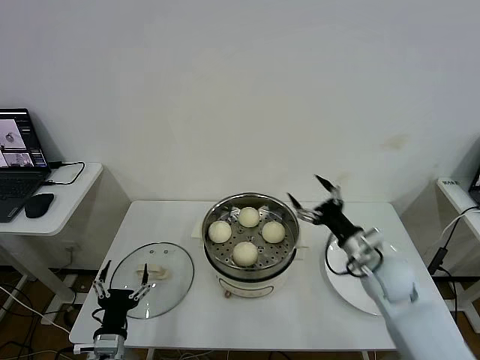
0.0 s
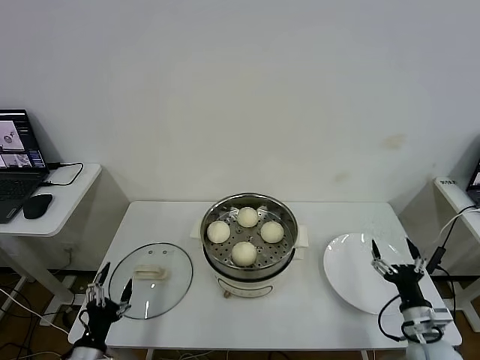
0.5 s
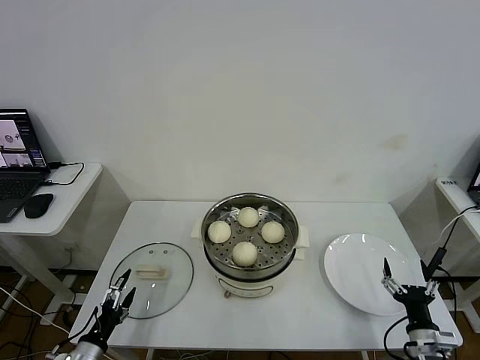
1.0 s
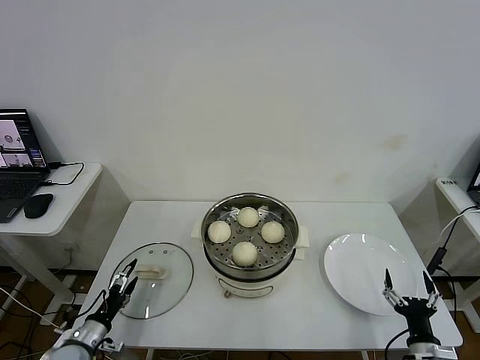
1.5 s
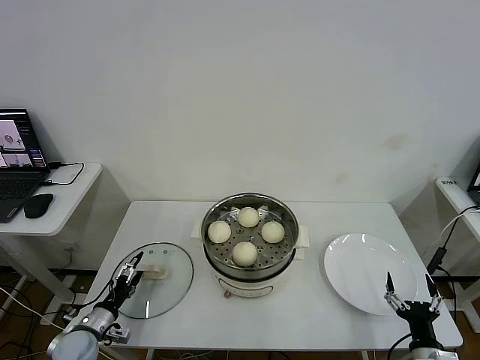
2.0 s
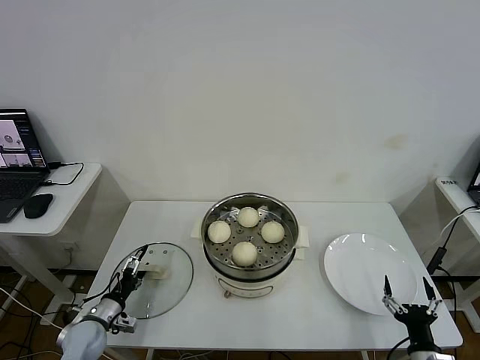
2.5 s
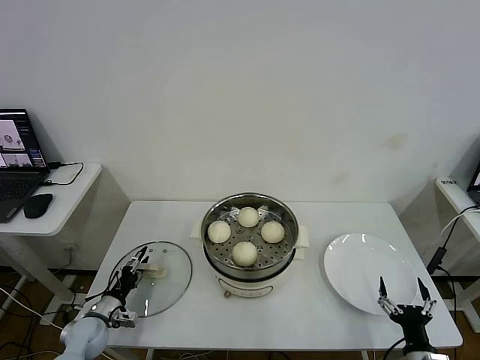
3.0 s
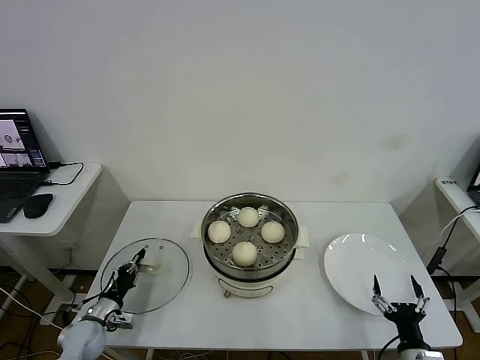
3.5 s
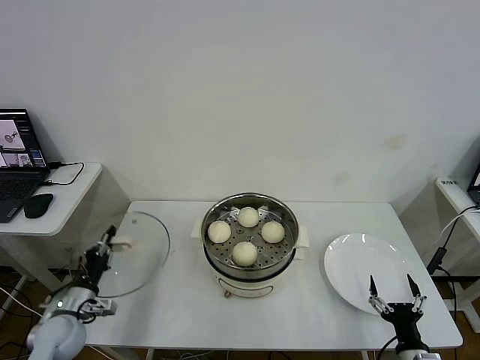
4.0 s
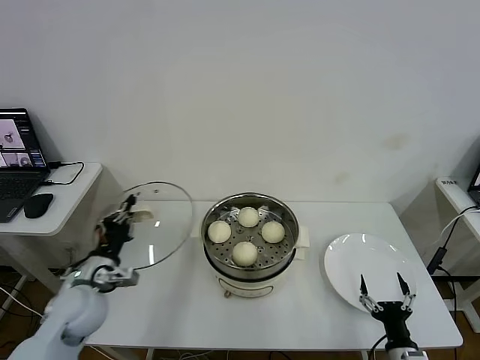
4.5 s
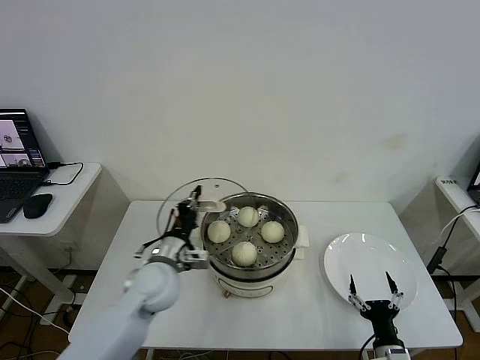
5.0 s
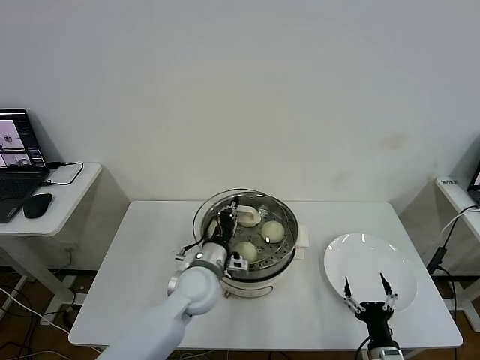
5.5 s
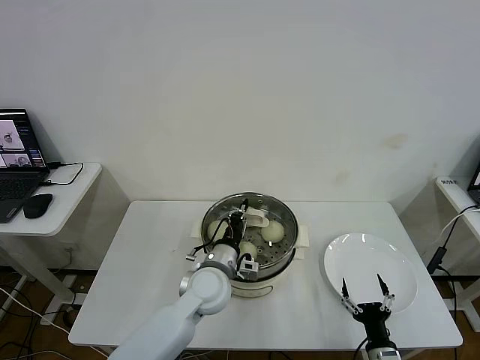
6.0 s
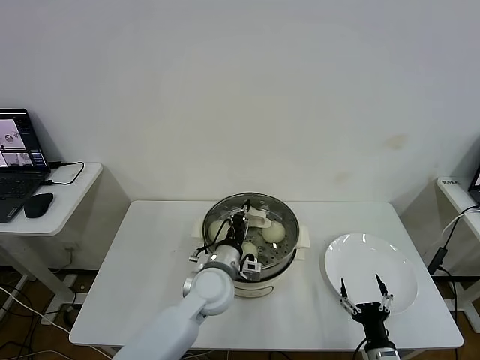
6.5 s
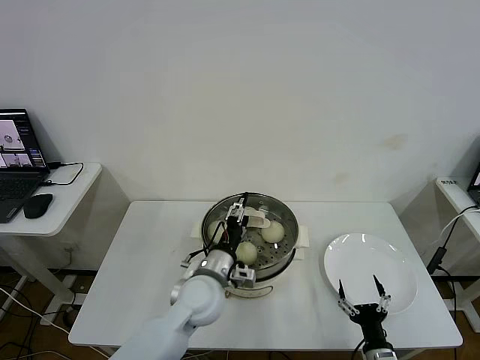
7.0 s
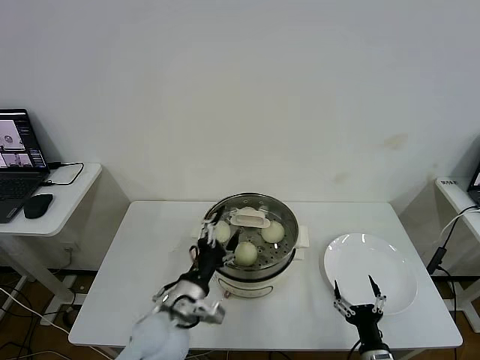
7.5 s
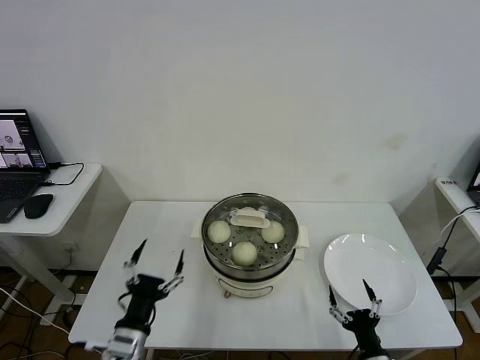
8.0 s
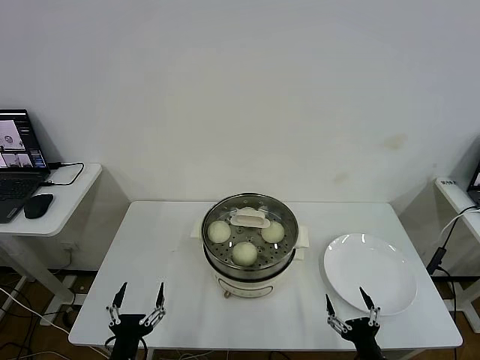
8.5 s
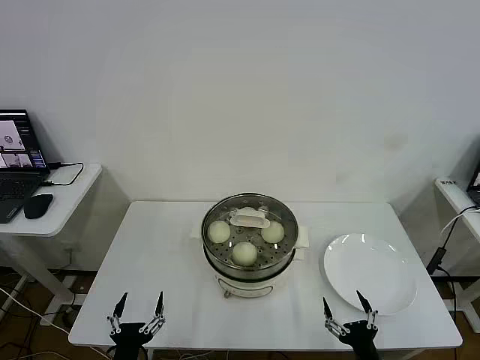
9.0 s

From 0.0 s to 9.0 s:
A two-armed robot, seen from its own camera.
Step, from 0.0 s to 3.5 s: Grasp the pot lid with left gripper.
Step, from 4.0 s to 7.5 s: Place the pot lid on the steamer with left gripper.
From 0.0 s to 2.0 s: The right gripper goes some 25 cm backward, downward and to the right. The left gripper travels to the left, forward and downward by some 15 cm.
From 2.0 s to 4.5 s: The left gripper heads upward, covering some 15 cm, and closes up.
From 4.5 s to 7.0 s: The left gripper goes about 25 cm to the right, and opens its fingers.
From 7.0 s to 9.0 s: The right gripper shifts by roughly 5 cm. Meanwhile the left gripper travels backward, to the left and downward by roughly 30 cm, and opens its fingers.

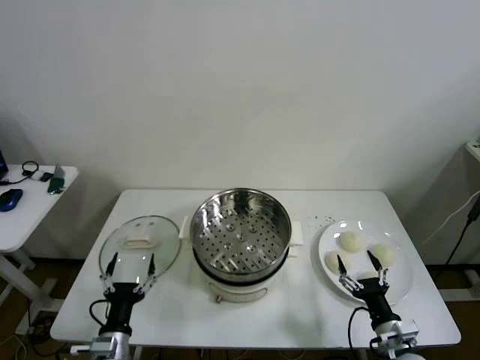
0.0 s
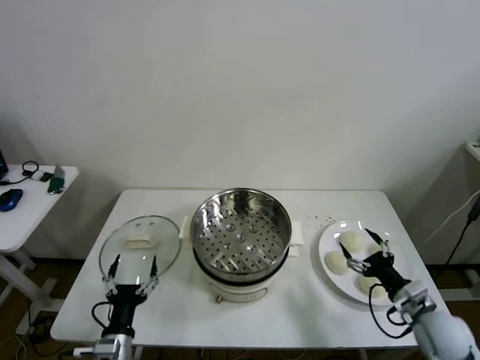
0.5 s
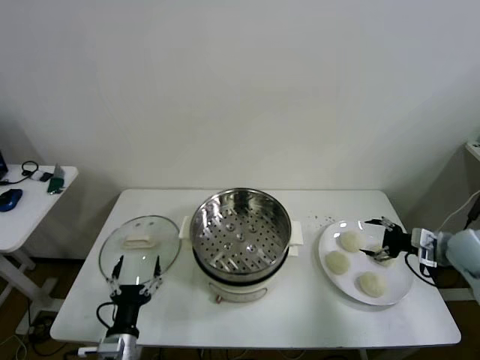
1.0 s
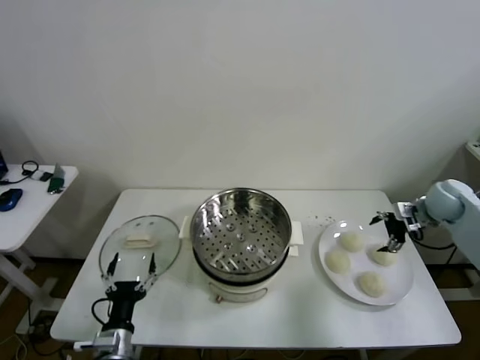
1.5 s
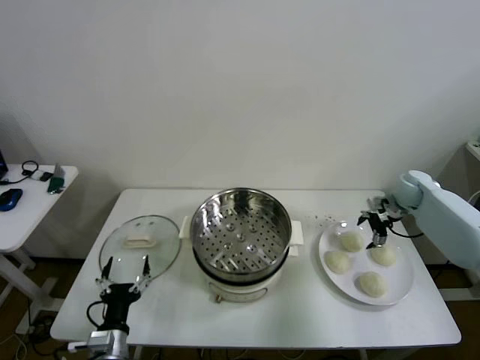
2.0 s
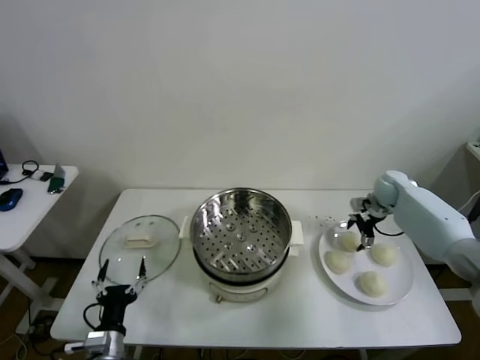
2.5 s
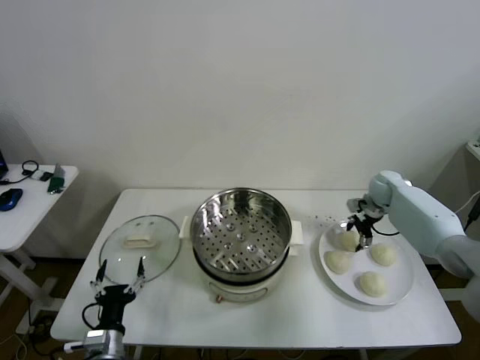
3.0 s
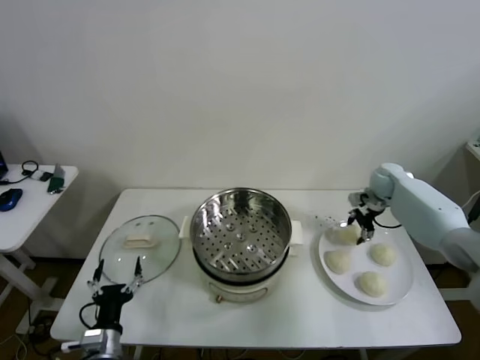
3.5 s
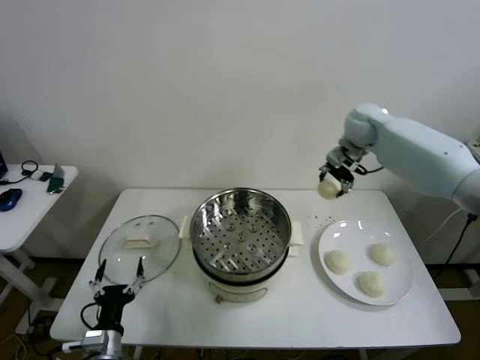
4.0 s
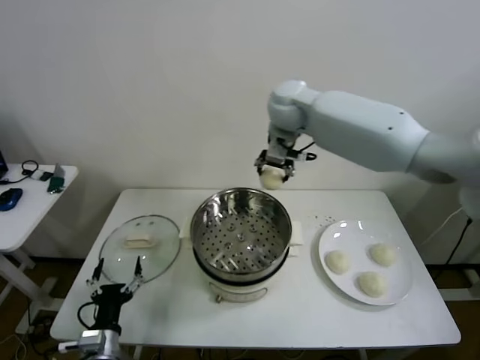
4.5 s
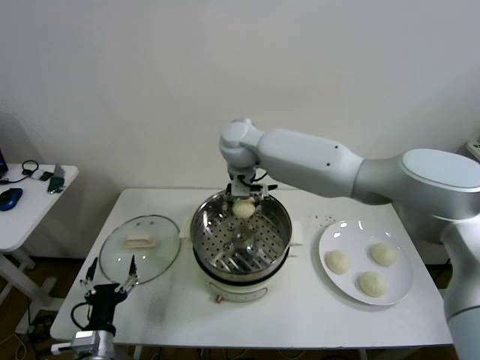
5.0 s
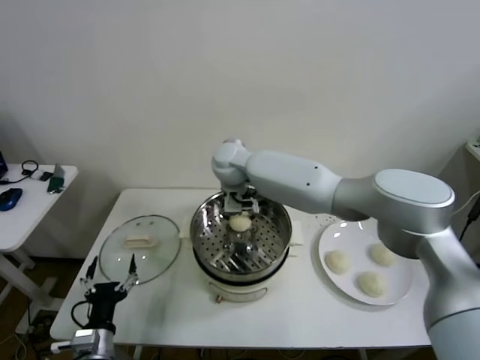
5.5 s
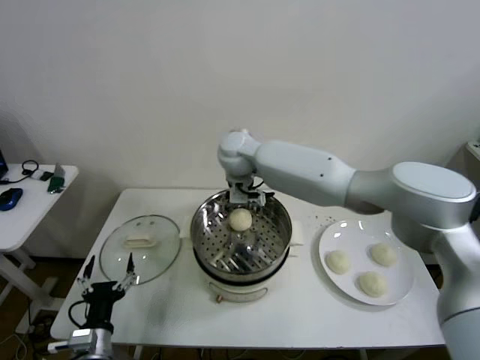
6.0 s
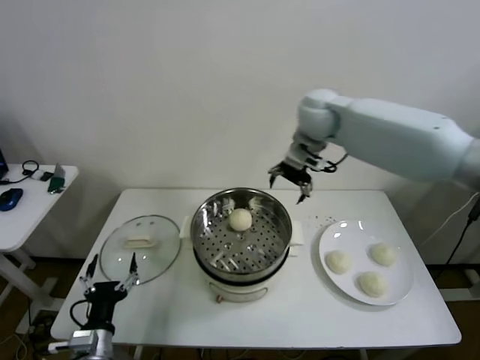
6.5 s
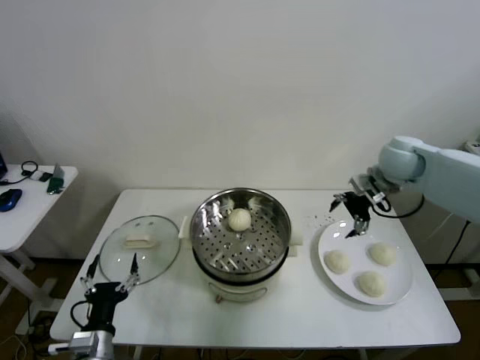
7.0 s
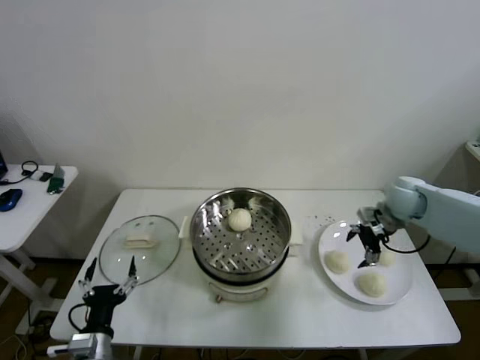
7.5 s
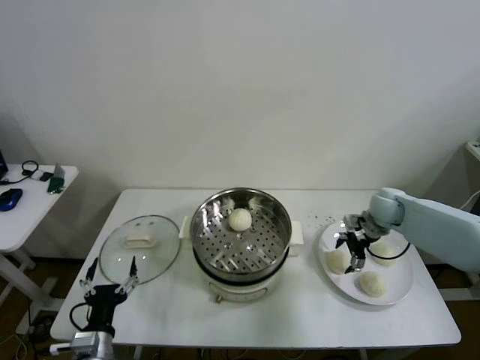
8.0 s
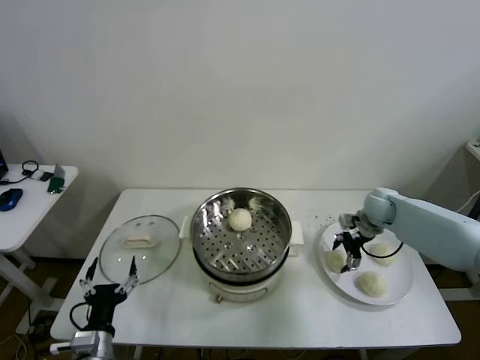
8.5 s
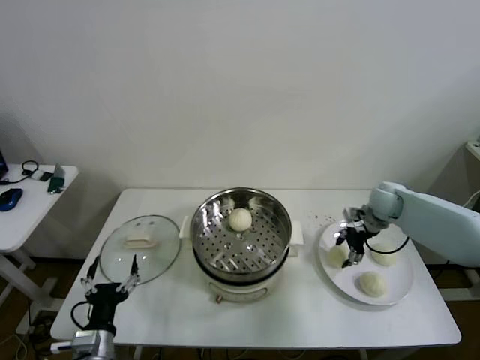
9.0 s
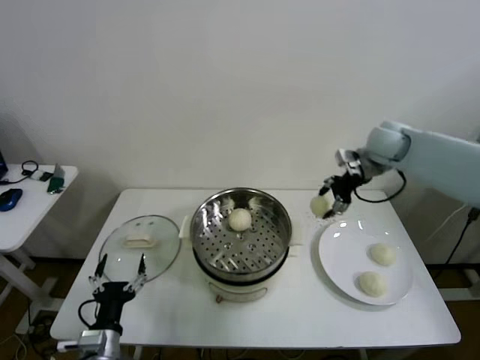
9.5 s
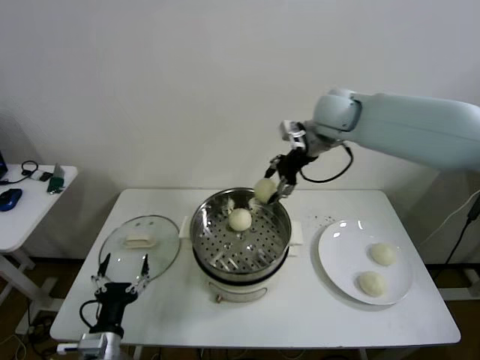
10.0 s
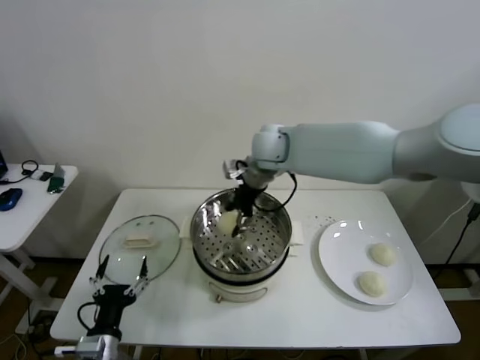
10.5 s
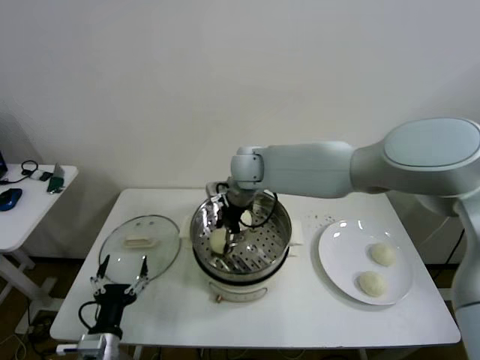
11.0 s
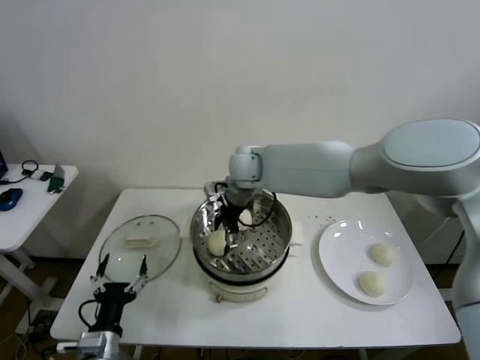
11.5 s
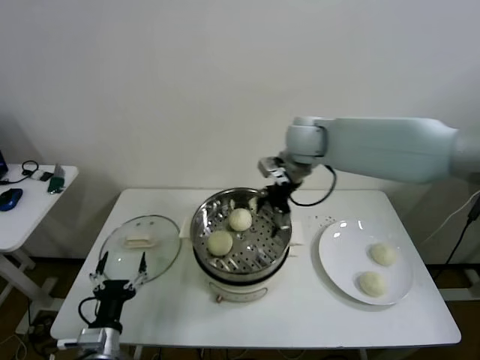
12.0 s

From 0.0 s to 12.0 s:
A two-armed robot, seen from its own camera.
Step, from 0.0 s to 2.5 s: Grasp the baozi in the plate with right gripper.
Step, from 3.5 s to 5.5 s: Place the baozi on the steamer with right gripper.
Step, from 6.0 s to 8.5 s: Grasp the baozi in the plate with right gripper.
Step, from 9.0 s to 11.5 s: Place the baozi on the steamer with right gripper.
From 2.0 s to 4.0 s: The right gripper shifts about 25 cm upward and to the left, and closes.
From 4.0 s to 6.0 s: The right gripper heads to the left, covering about 25 cm, and opens up.
From 6.0 s to 8.0 s: The right gripper goes approximately 40 cm to the right and downward.
From 8.0 s to 10.0 s: The right gripper is displaced upward and to the left by some 30 cm, and closes.
From 10.0 s to 12.0 s: The right gripper moves some 15 cm to the left and comes back, and opens its fingers.

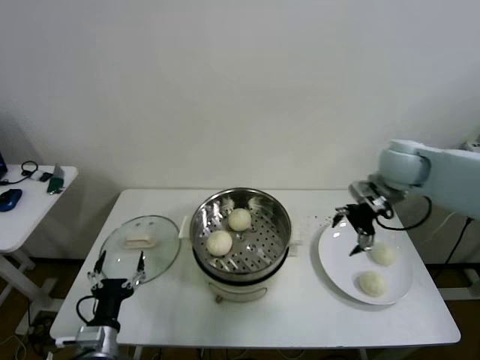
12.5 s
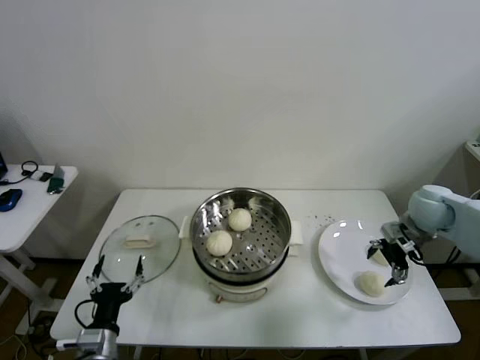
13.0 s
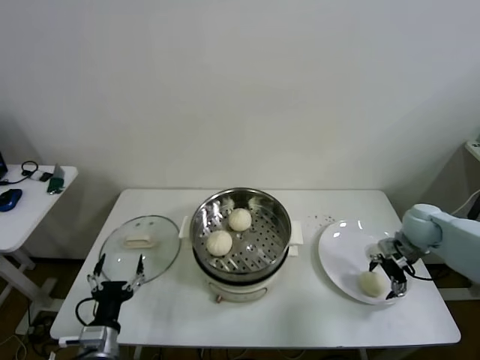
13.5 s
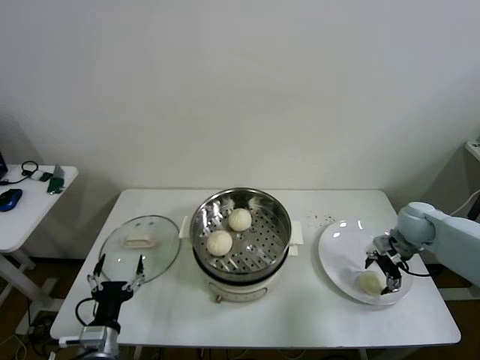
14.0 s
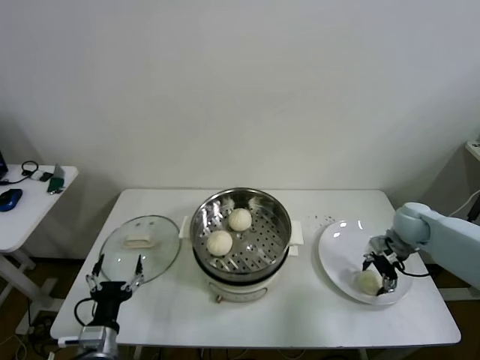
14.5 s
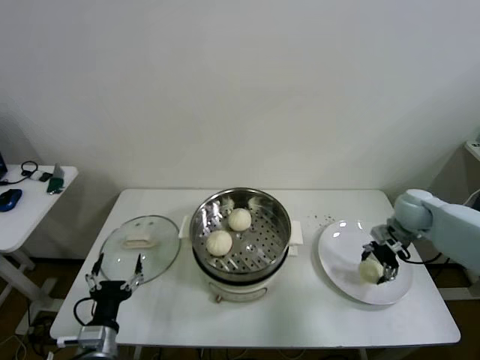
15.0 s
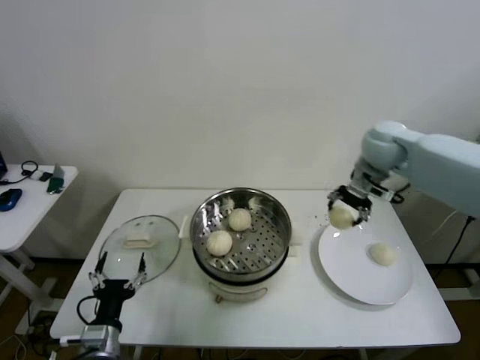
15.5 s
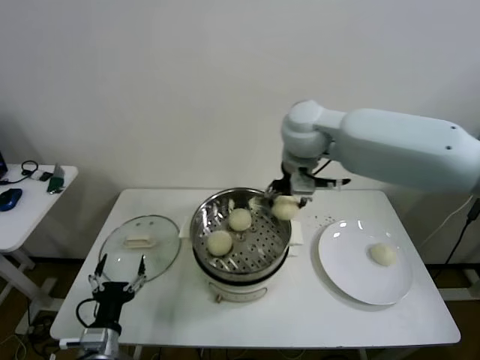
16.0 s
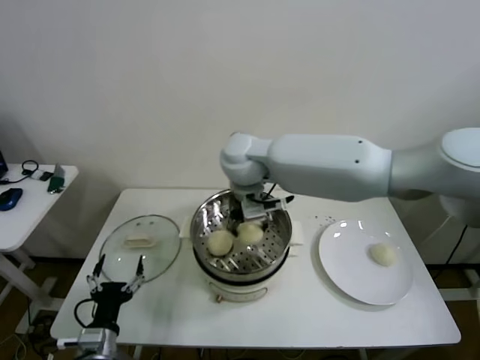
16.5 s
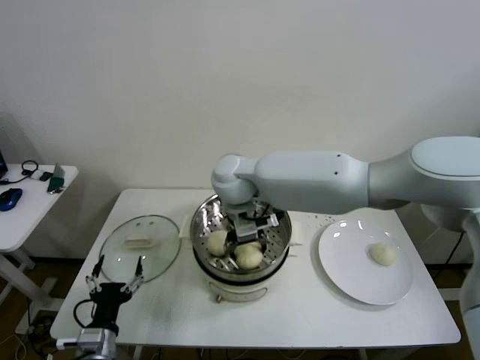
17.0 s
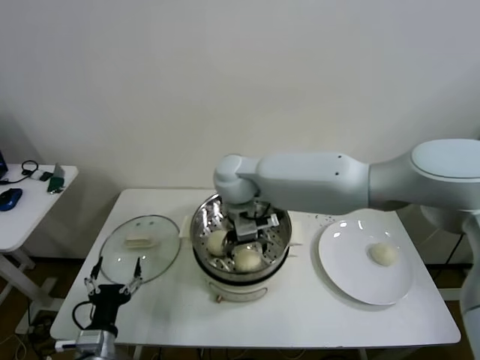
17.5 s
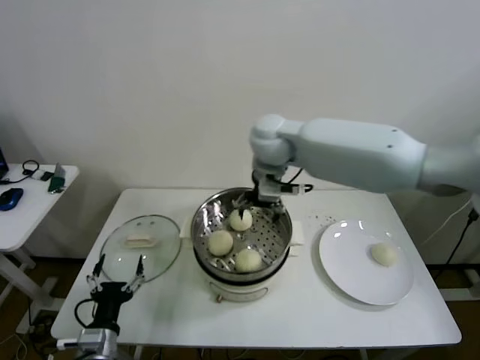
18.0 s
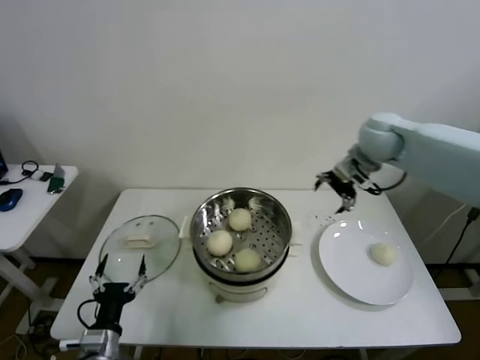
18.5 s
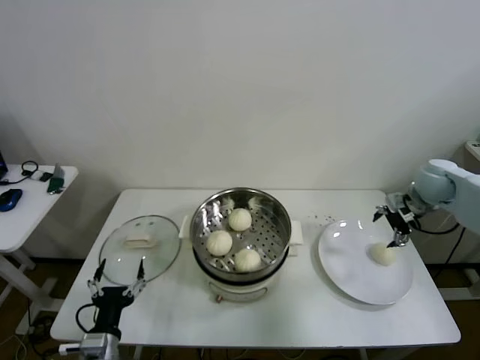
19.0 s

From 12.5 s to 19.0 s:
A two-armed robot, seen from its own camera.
Step, from 12.5 s to 14.5 s: Grasp the baozi in the plate with right gripper.
Step, from 15.0 s to 17.0 s: Place the baozi on the steamer with right gripper.
From 12.5 s to 14.5 s: The right gripper shifts some 20 cm downward and to the right, and closes its fingers.
From 14.5 s to 17.0 s: The right gripper travels to the left by roughly 40 cm.
From 17.0 s to 19.0 s: The right gripper is displaced to the right by about 50 cm, and opens up.
